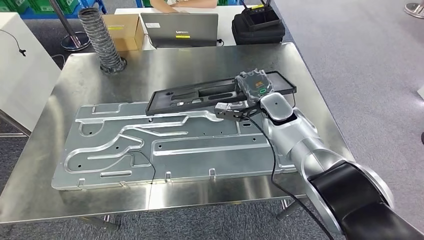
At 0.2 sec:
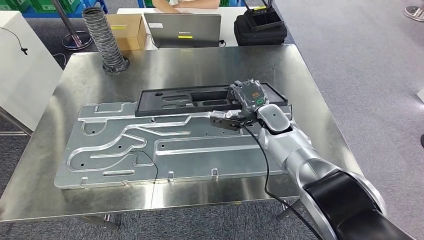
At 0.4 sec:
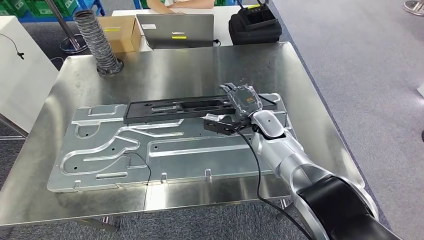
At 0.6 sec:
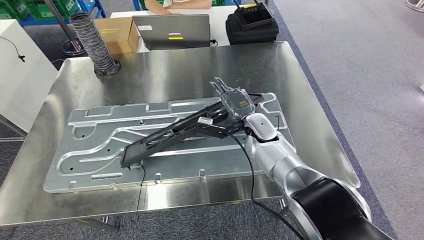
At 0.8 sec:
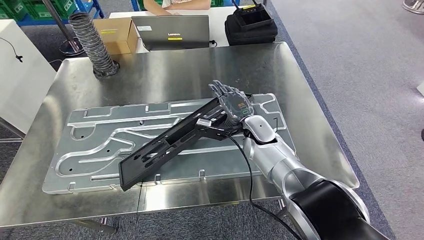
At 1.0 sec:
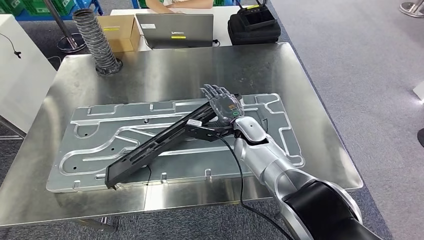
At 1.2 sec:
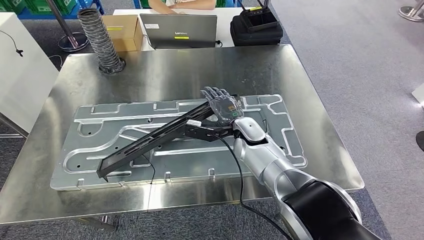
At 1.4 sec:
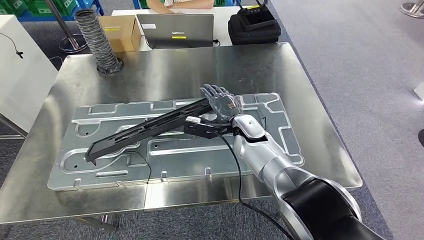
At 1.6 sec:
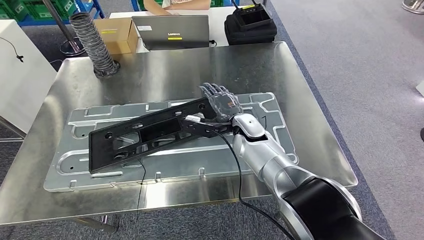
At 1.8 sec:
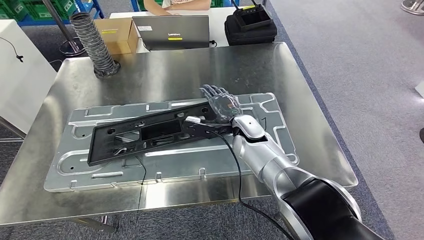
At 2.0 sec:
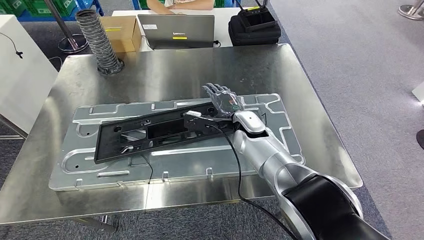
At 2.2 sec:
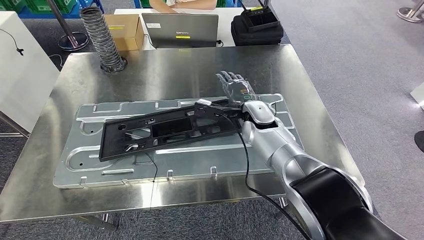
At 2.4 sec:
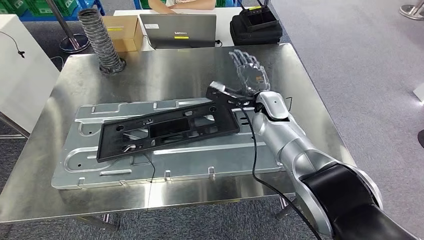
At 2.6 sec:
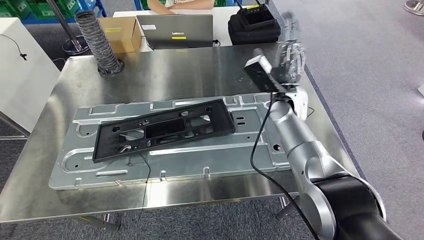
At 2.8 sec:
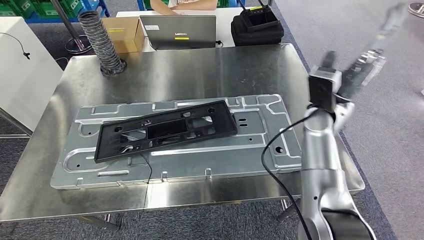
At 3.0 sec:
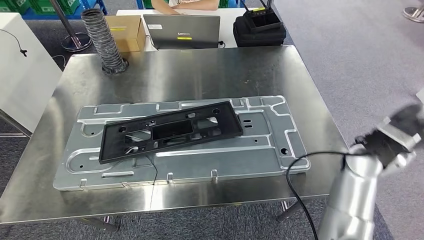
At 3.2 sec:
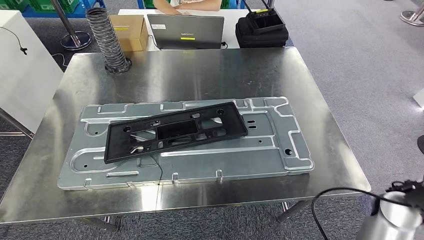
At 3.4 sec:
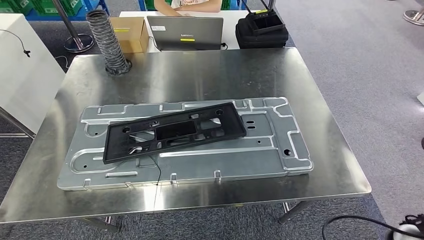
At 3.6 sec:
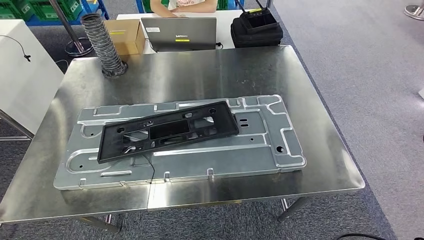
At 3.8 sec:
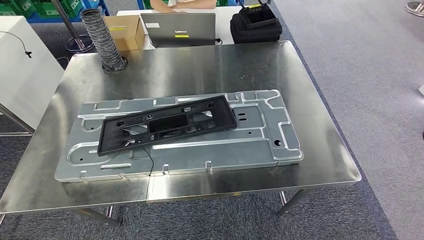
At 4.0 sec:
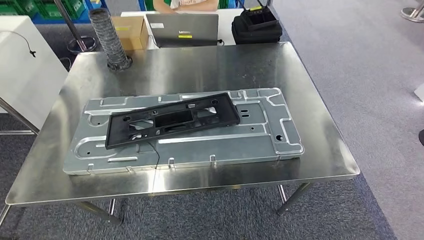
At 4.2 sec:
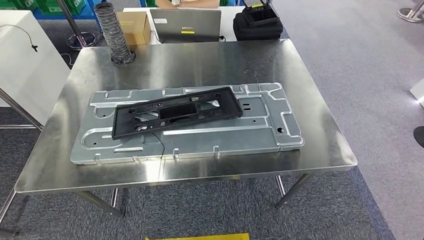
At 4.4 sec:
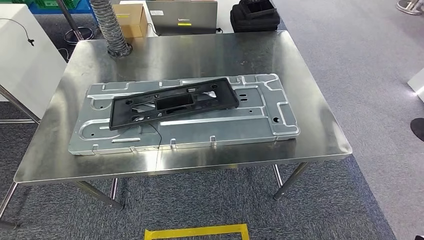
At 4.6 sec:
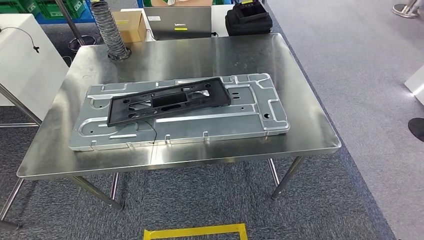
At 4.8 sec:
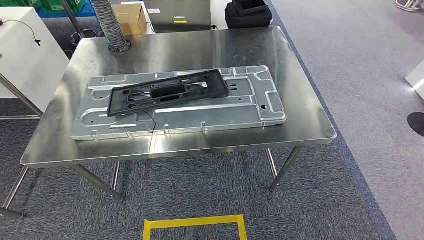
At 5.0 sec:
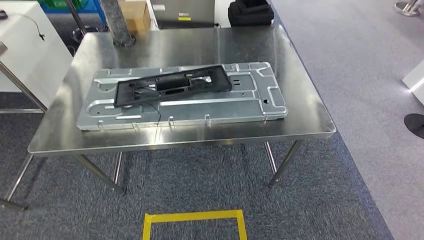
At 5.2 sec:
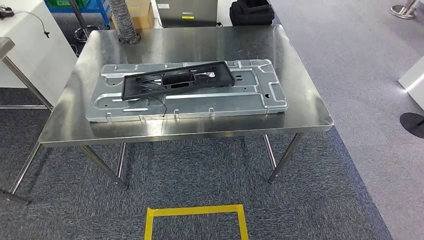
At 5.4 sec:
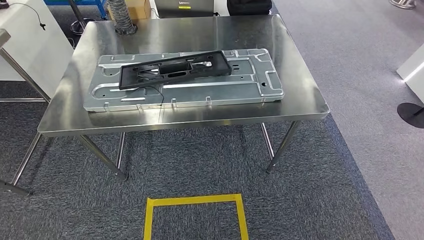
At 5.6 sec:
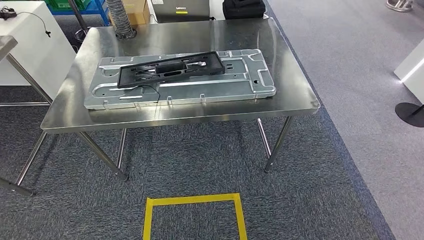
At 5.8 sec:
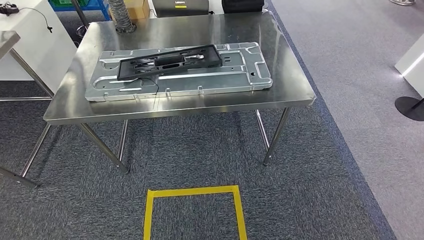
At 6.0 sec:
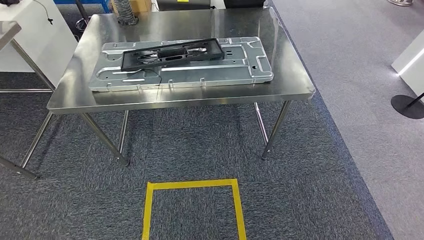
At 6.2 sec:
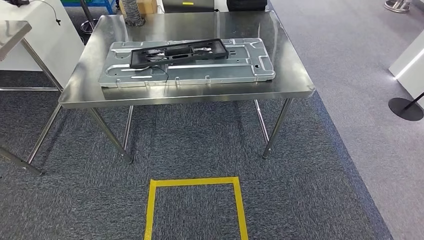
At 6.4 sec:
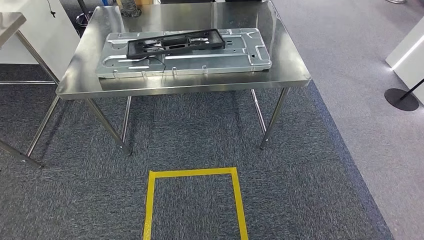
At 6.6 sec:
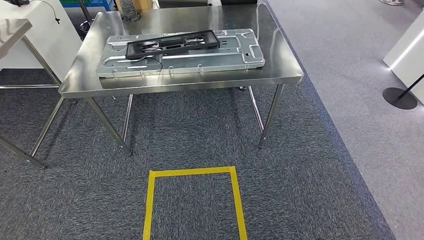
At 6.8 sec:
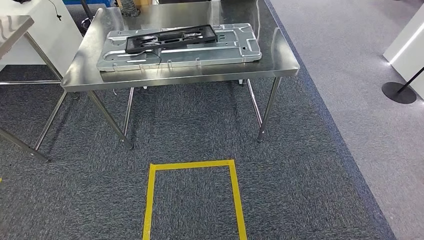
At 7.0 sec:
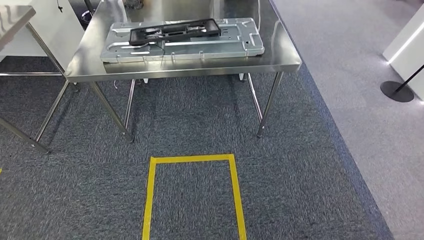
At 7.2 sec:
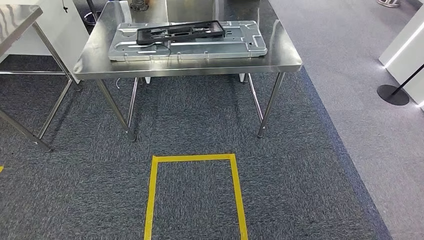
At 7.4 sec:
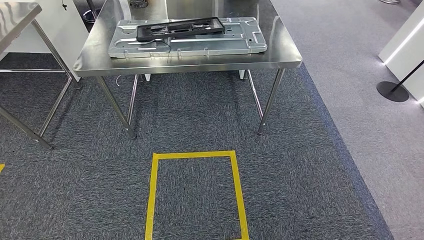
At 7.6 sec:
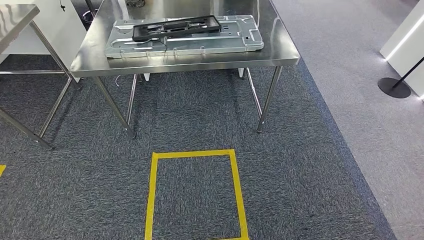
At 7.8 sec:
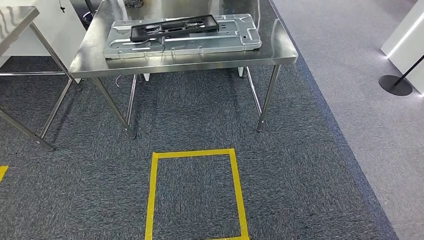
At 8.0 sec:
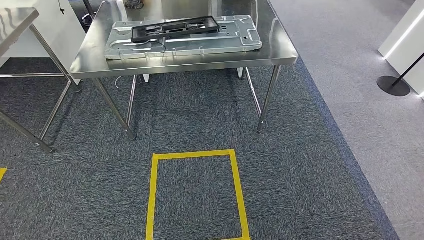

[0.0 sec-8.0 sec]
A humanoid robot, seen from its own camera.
Step, 0.0 sec to 3.8 sec: Insert the large material into the corresponding slot on the workbench.
Step, 4.0 sec to 8.0 sec: Return to the initial position at the shelf.
